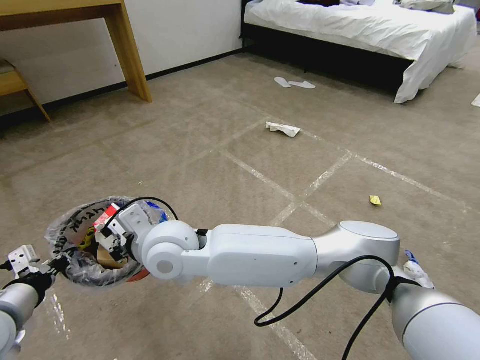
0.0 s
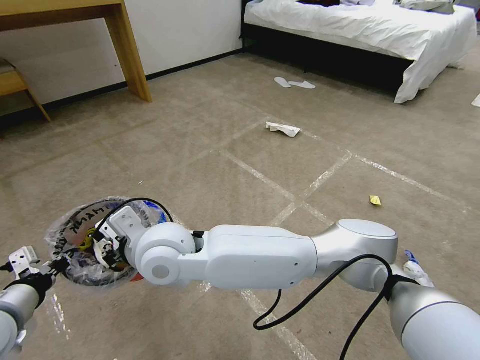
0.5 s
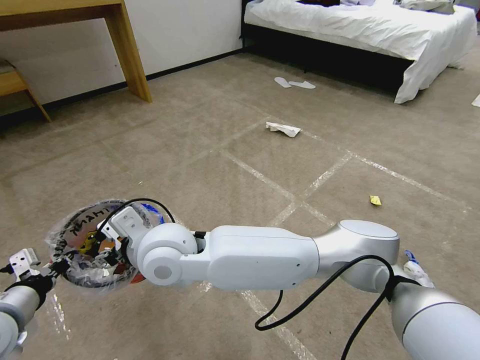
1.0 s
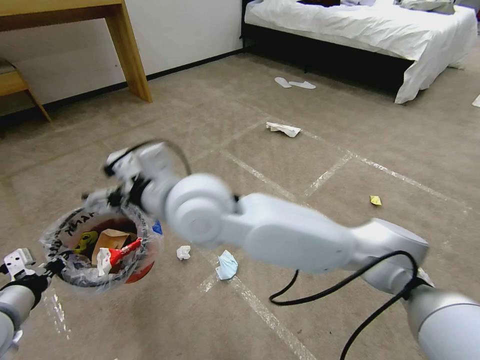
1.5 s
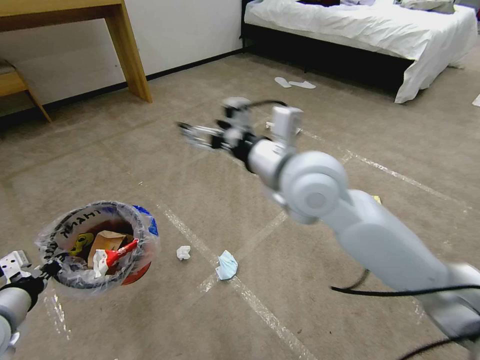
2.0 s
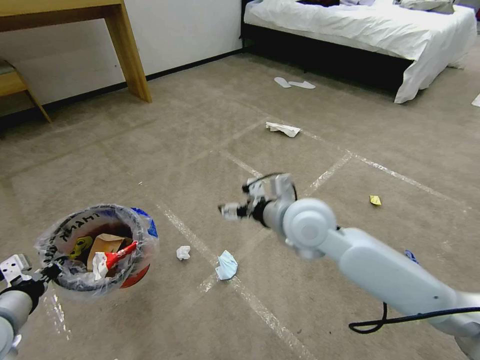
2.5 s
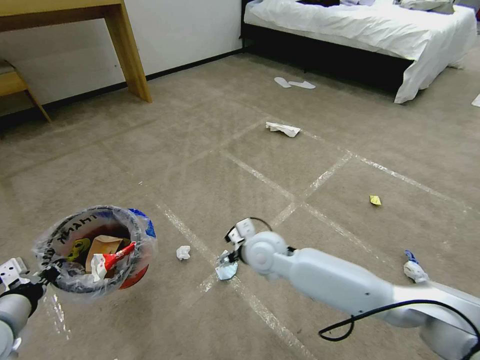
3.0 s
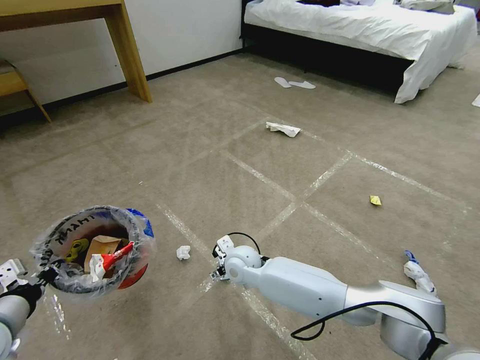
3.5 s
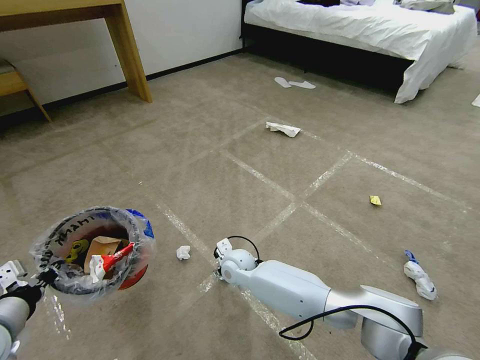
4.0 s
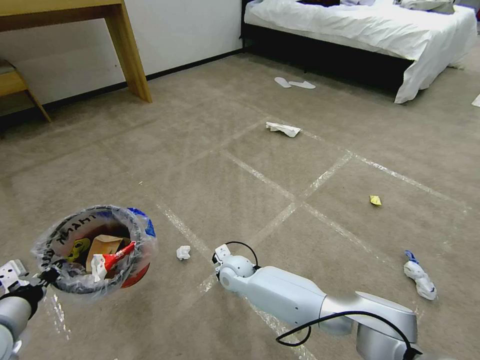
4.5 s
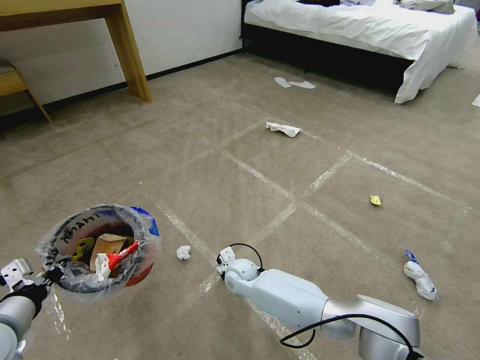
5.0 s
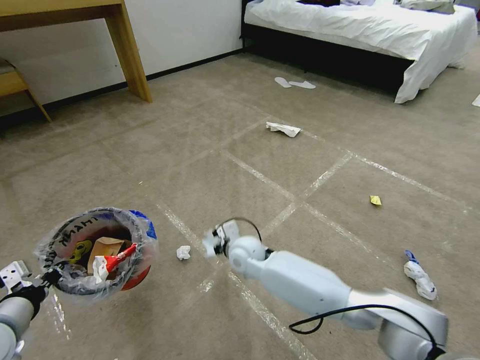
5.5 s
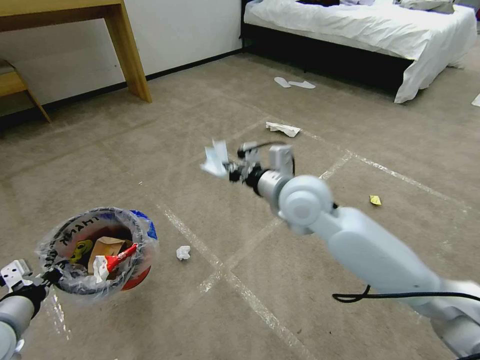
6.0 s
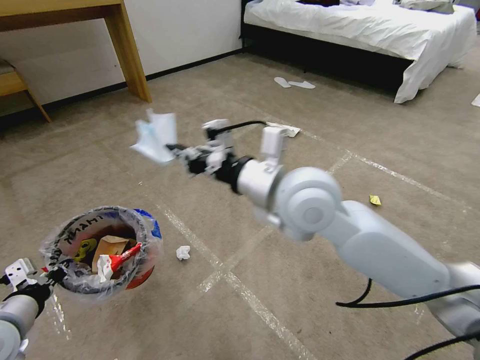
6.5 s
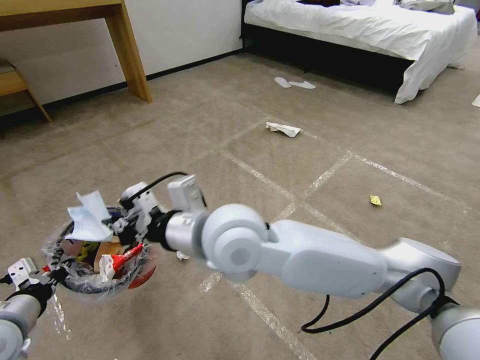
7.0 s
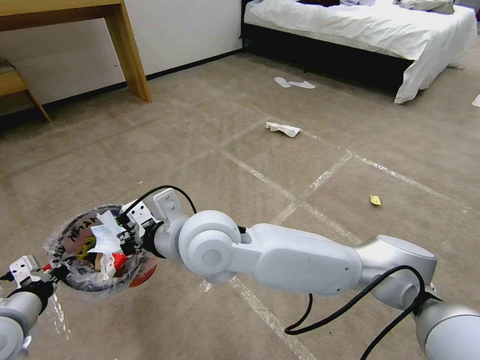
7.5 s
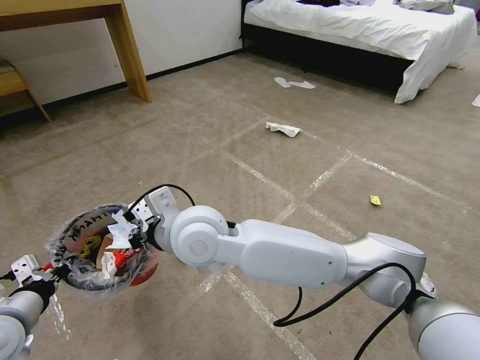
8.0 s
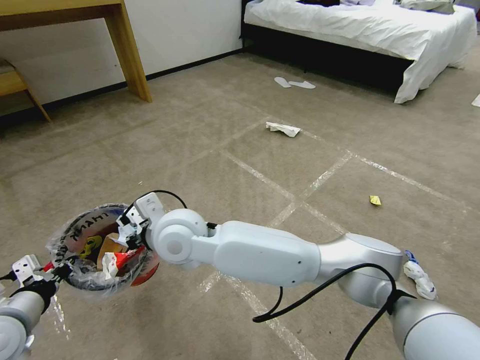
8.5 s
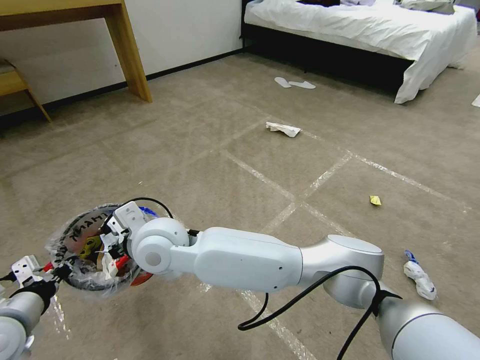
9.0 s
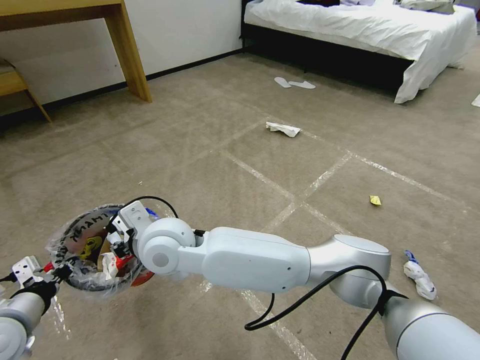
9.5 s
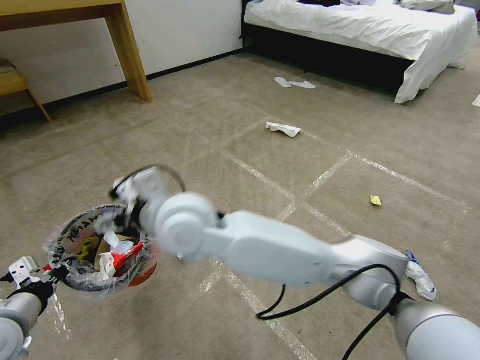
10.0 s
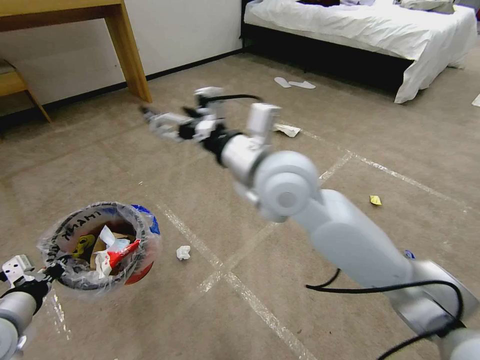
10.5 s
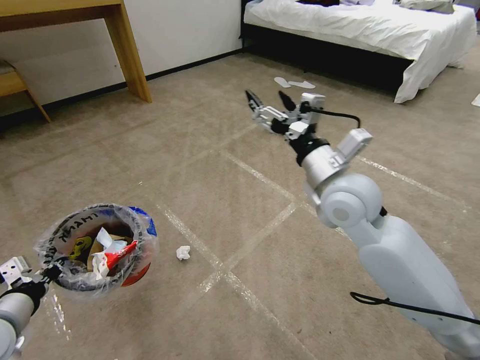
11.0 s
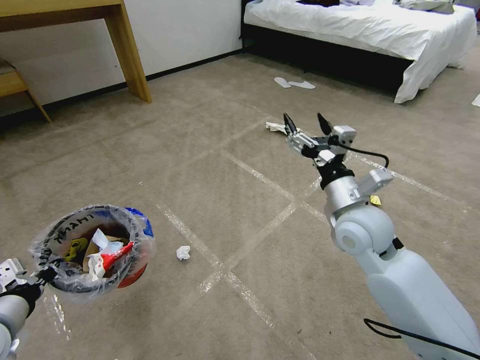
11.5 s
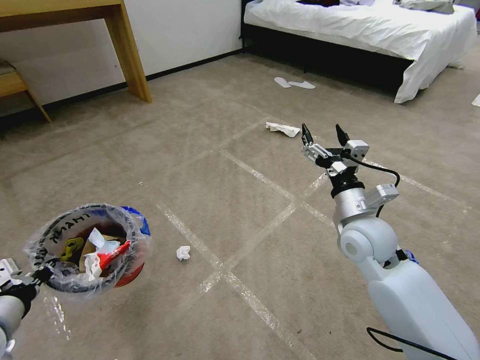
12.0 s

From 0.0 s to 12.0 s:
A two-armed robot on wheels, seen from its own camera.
Task of the whole recording: Pick up the trash bin and place the garbage on the floor into it.
From 0.0 s to 2.0 s: The right gripper heads to the right and upward, covering some 25 cm, and opens its fingers.
From 2.0 s to 4.0 s: The right gripper travels downward by approximately 35 cm.
From 4.0 s to 6.0 s: The right gripper moves upward and to the right, roughly 30 cm, and closes its fingers.
From 6.0 s to 8.0 s: The right gripper shifts about 20 cm to the left.
From 8.0 s to 10.0 s: The right gripper opens up.
From 10.0 s to 12.0 s: The right gripper moves to the right, roughly 35 cm.

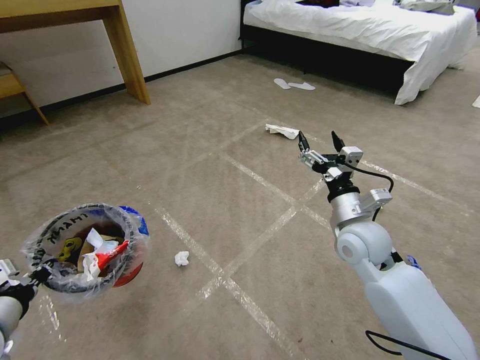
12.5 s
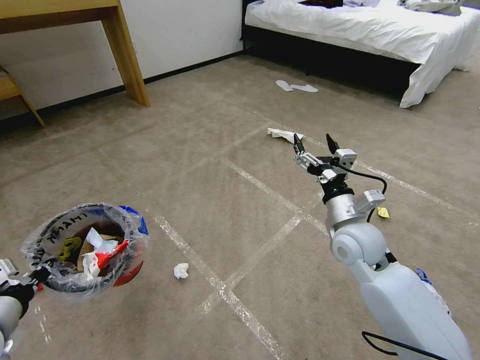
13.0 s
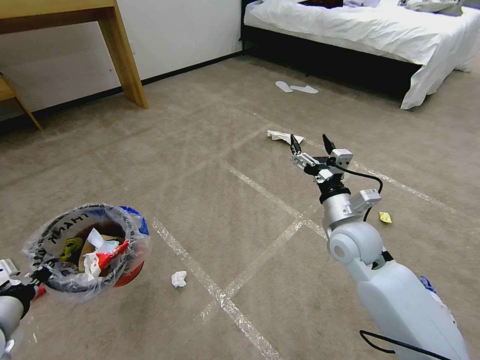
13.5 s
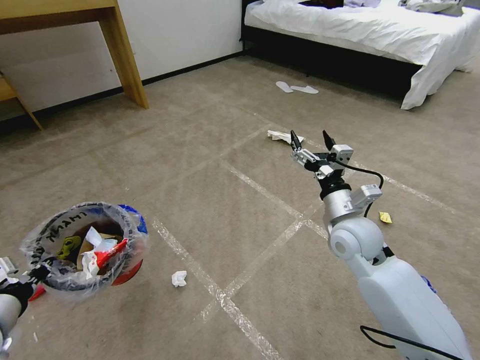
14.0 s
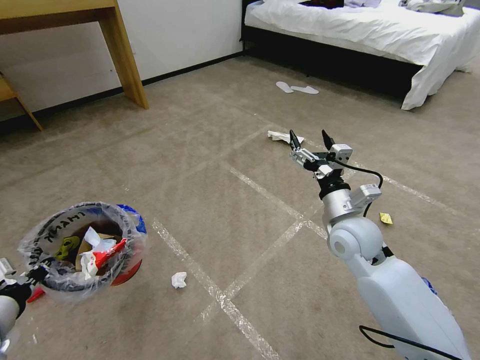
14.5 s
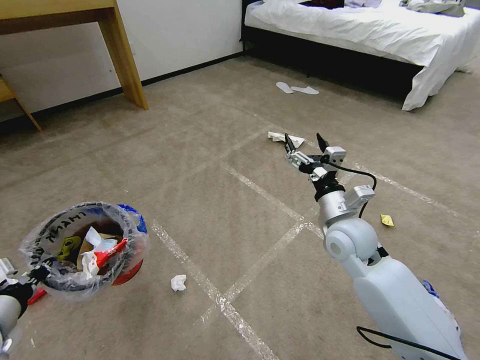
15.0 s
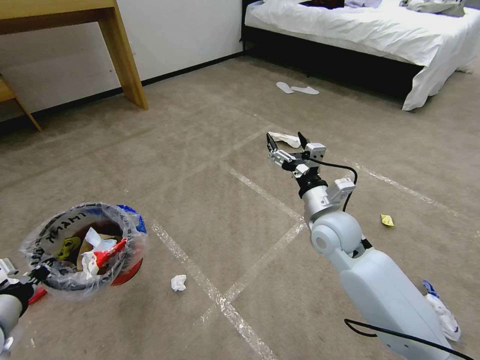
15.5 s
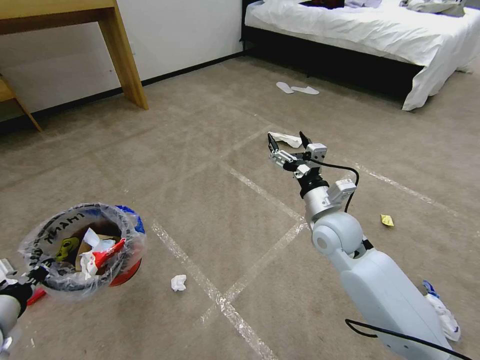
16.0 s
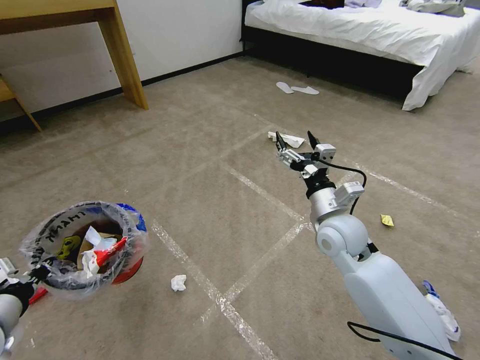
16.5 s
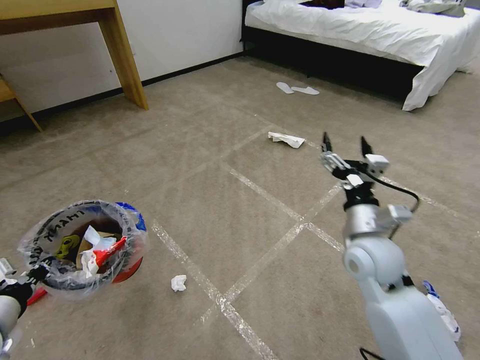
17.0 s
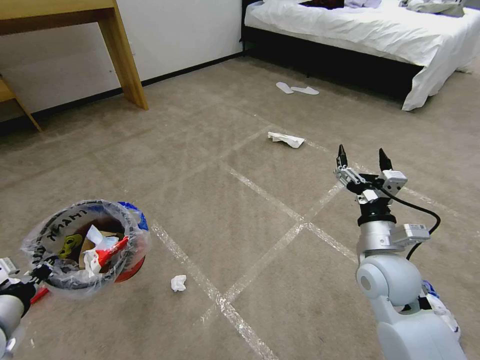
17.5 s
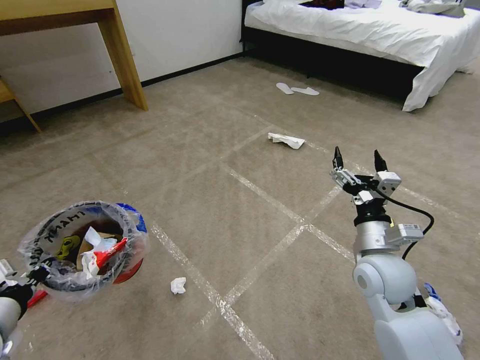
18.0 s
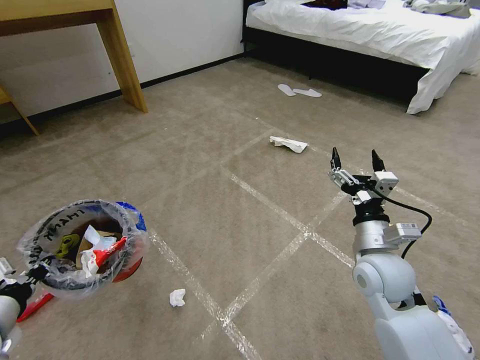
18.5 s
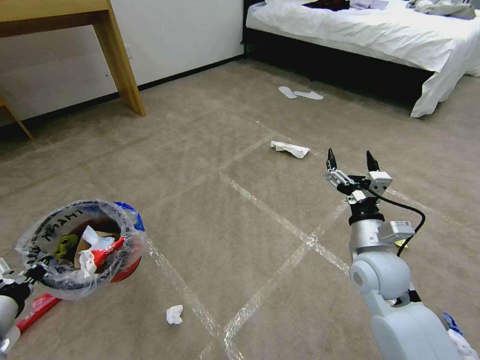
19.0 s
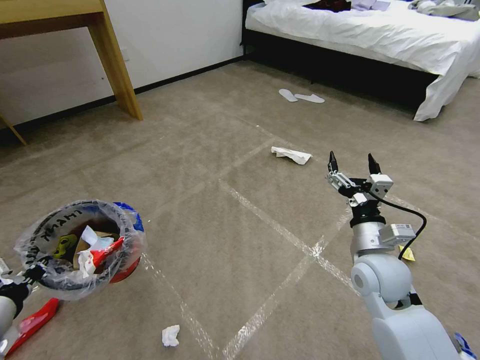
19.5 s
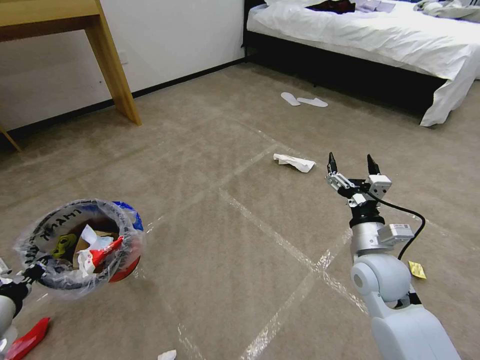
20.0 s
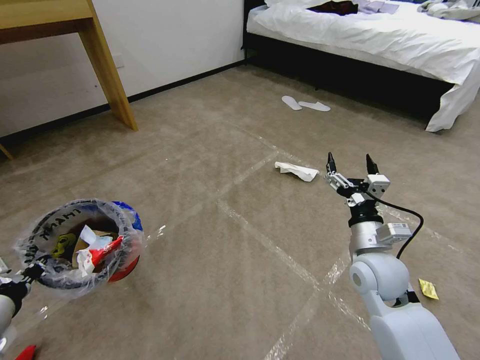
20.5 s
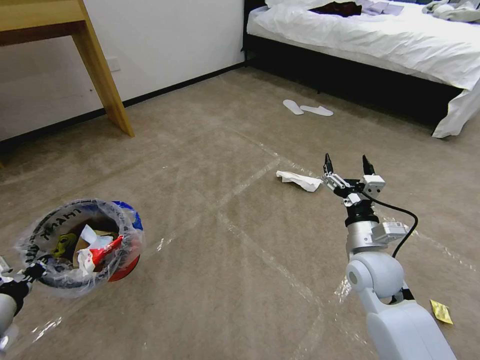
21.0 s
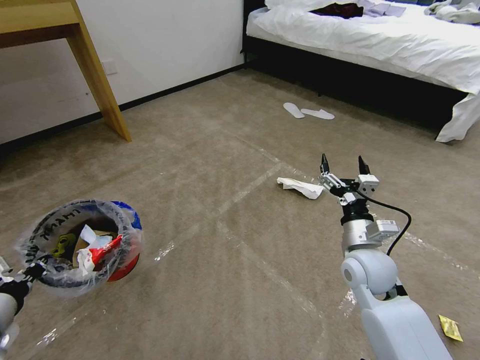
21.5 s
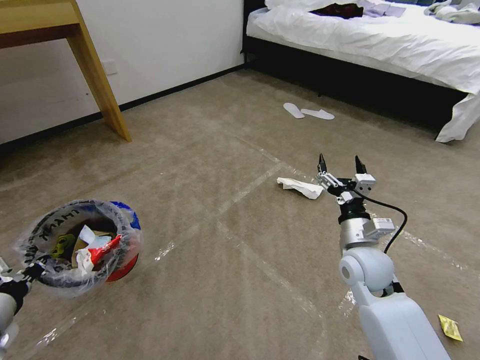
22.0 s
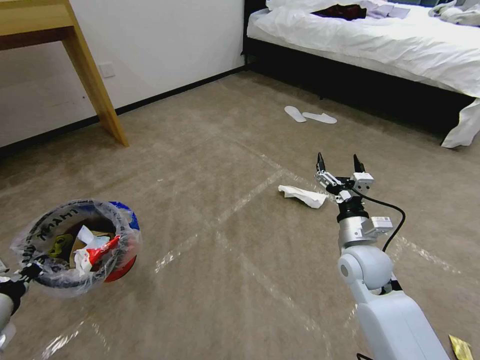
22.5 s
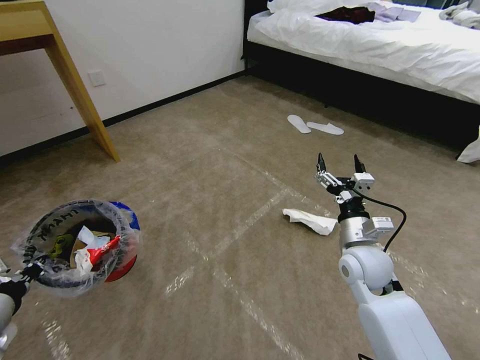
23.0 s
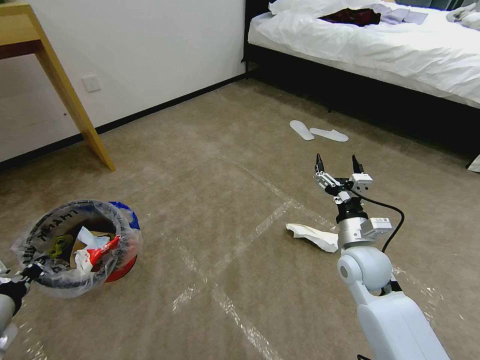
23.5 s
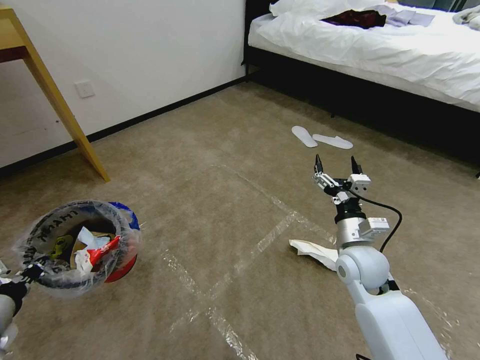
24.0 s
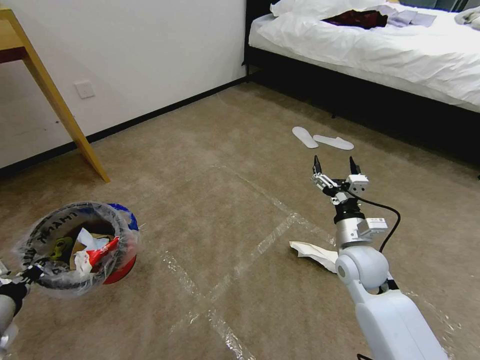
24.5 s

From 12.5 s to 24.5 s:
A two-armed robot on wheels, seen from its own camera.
Task of the whole recording: Pick up the trash bin and place the garbage on the floor into it.
From 12.5 s to 16.5 s: The grippers make only small movements.
From 16.5 s to 18.5 s: The right gripper moves backward and to the right, about 10 cm.

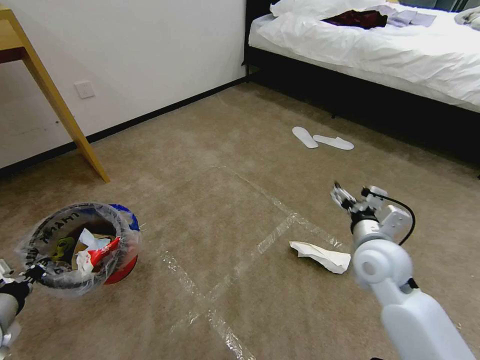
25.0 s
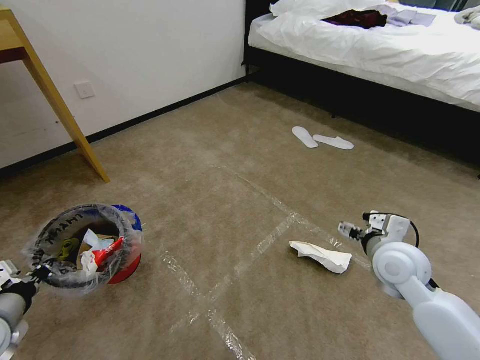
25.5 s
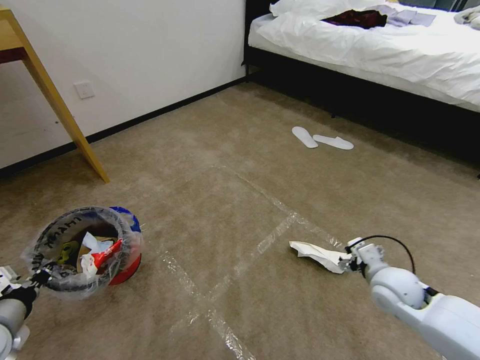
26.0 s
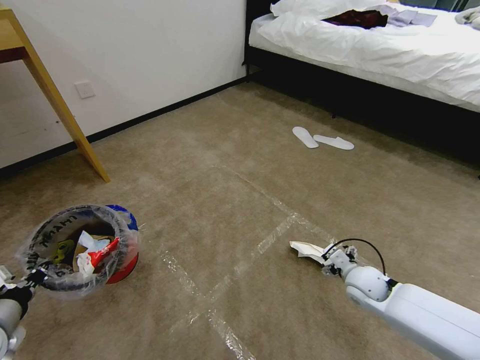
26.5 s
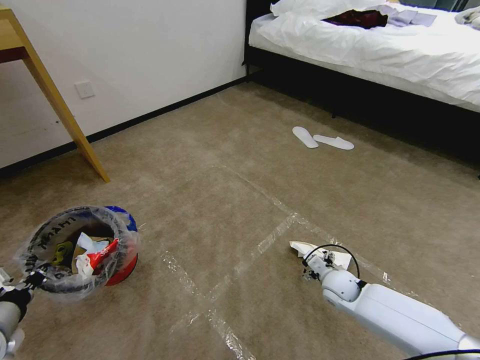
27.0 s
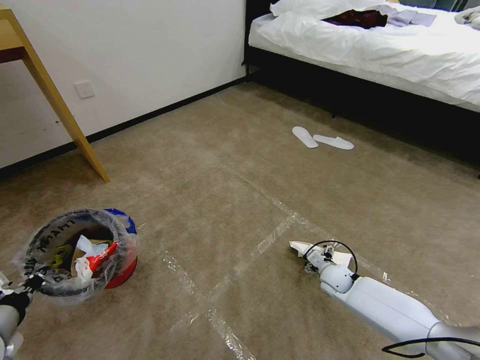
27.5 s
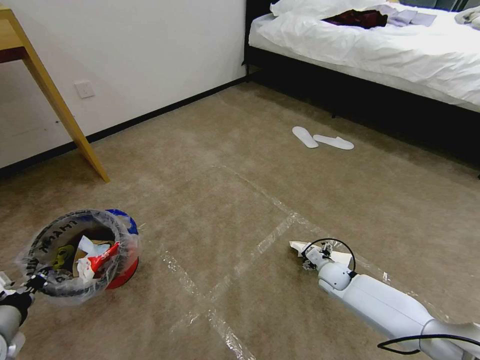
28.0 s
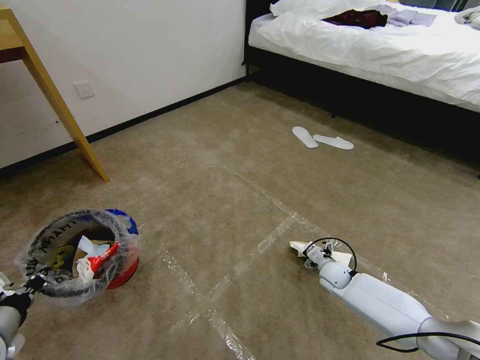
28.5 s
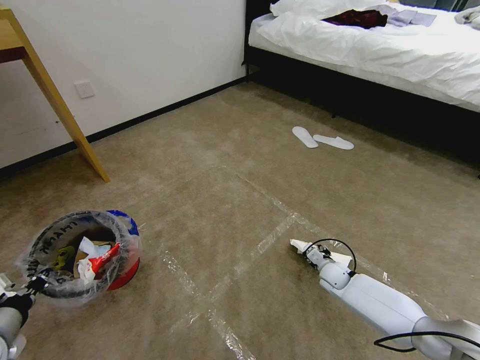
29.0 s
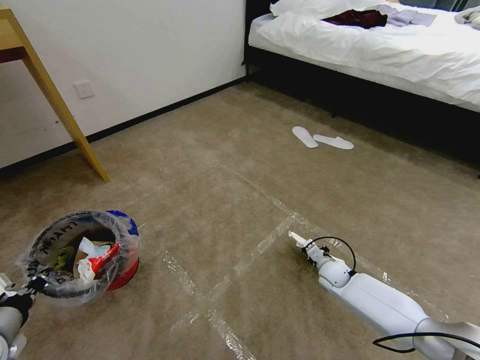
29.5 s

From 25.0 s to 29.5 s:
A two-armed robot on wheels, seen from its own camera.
Task of the whole recording: Pick up the trash bin and place the garbage on the floor into it.
From 25.0 s to 27.0 s: The right gripper is displaced downward by about 20 cm.
From 27.0 s to 29.5 s: The right gripper shifts approximately 5 cm forward, and closes.
